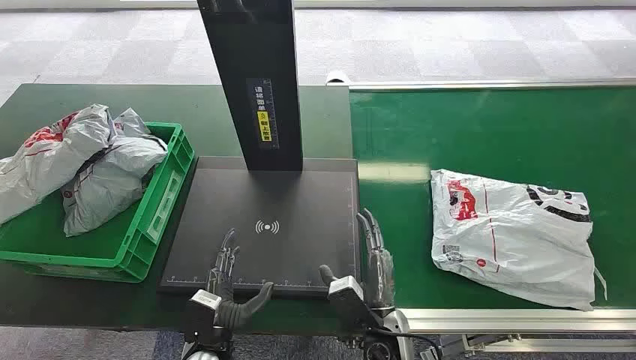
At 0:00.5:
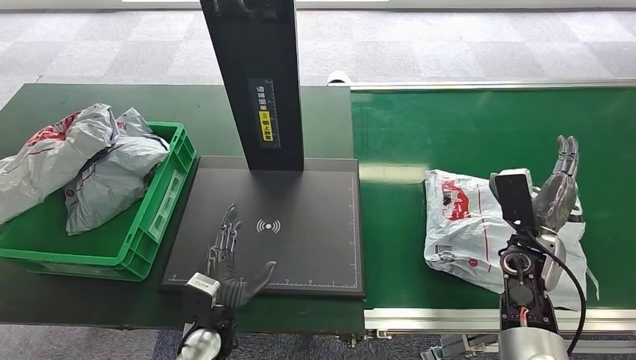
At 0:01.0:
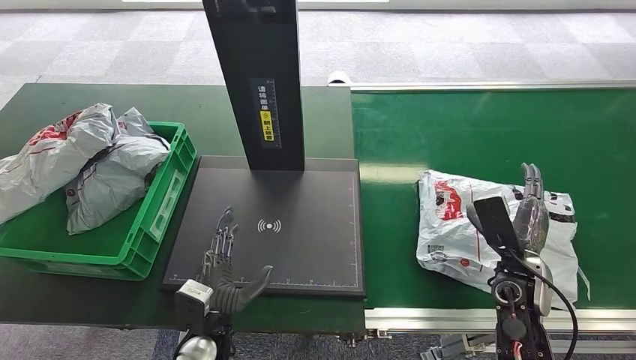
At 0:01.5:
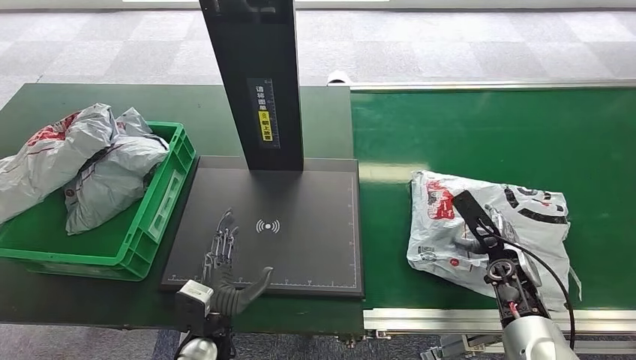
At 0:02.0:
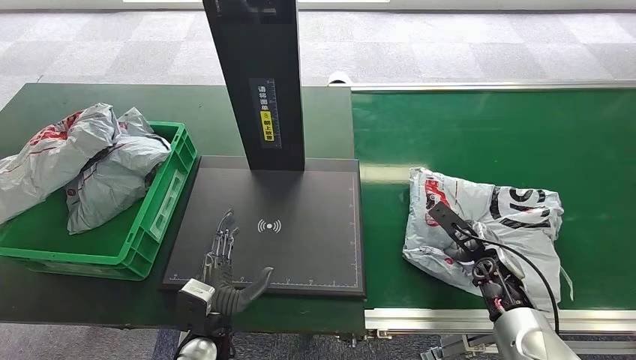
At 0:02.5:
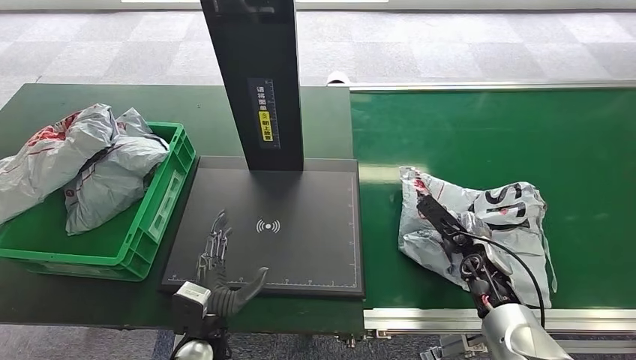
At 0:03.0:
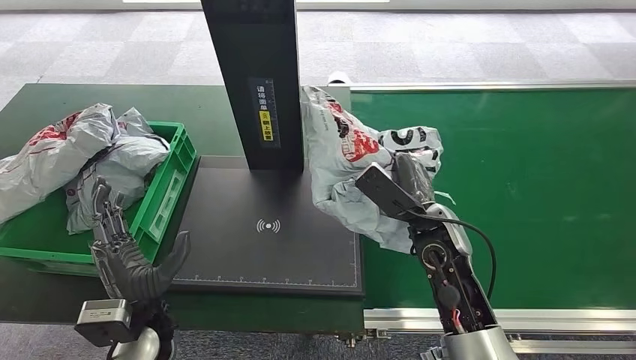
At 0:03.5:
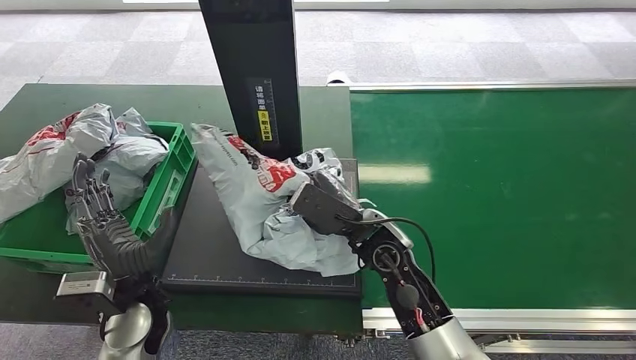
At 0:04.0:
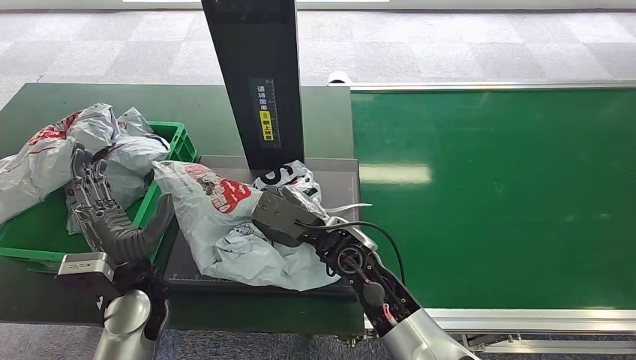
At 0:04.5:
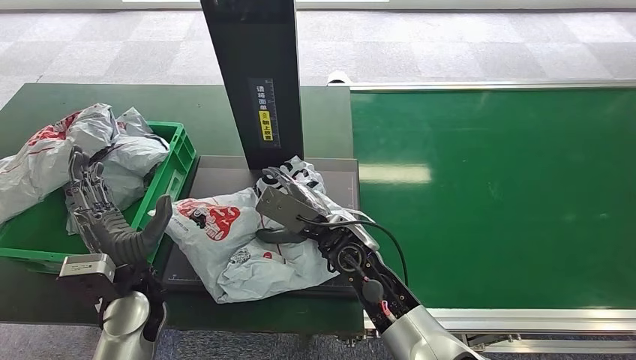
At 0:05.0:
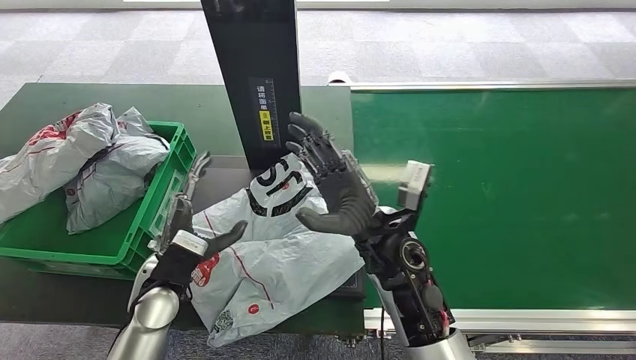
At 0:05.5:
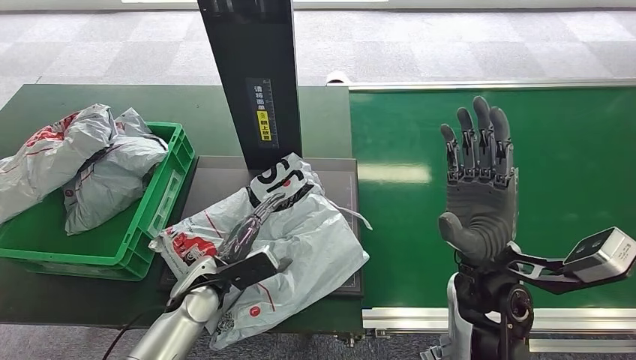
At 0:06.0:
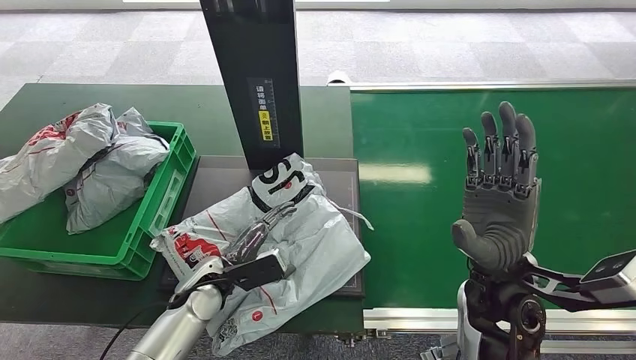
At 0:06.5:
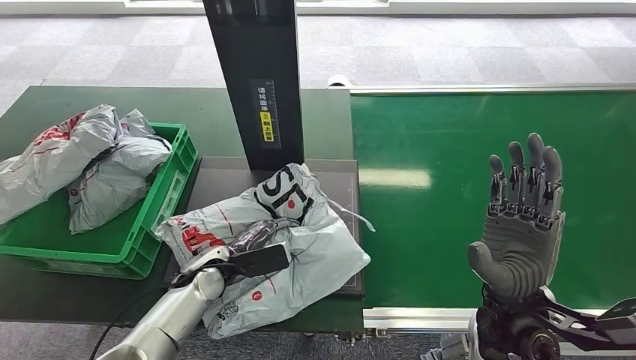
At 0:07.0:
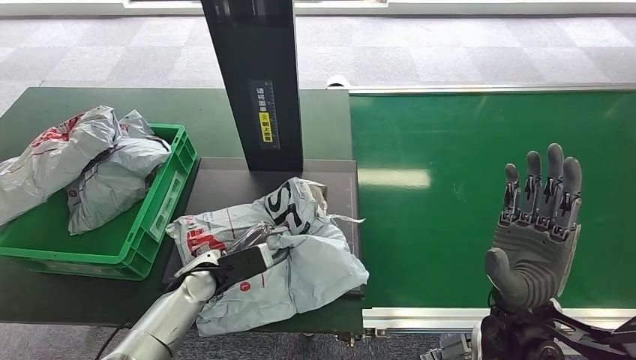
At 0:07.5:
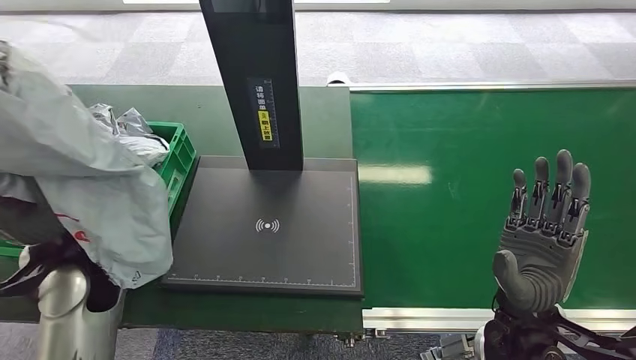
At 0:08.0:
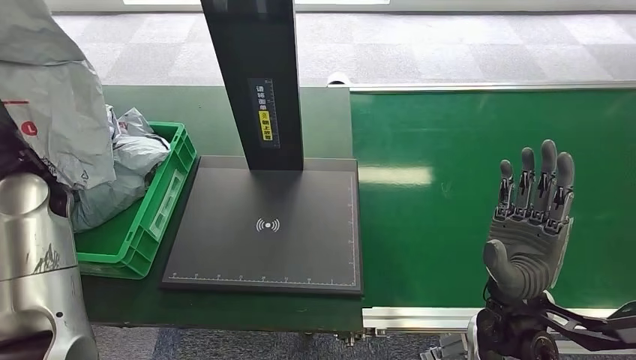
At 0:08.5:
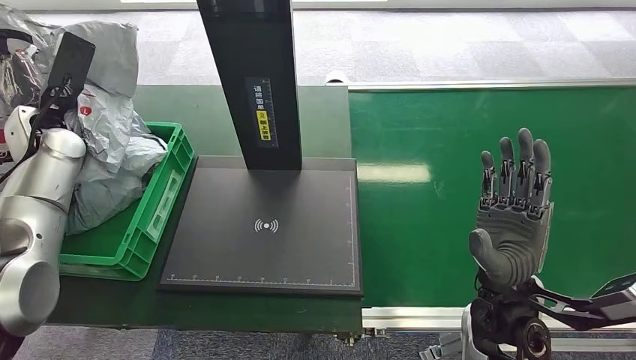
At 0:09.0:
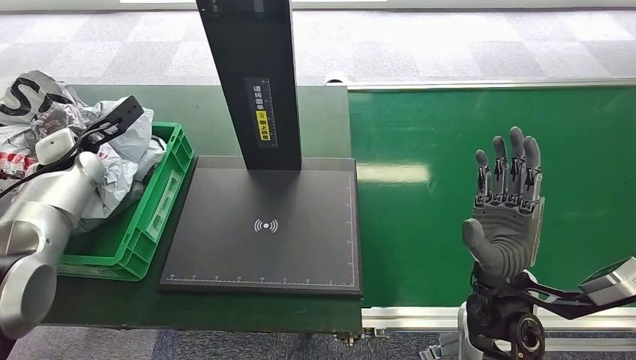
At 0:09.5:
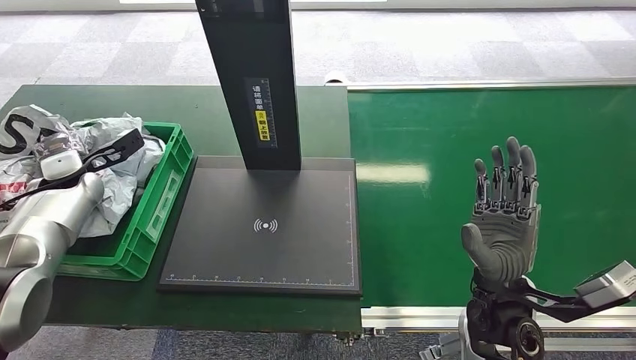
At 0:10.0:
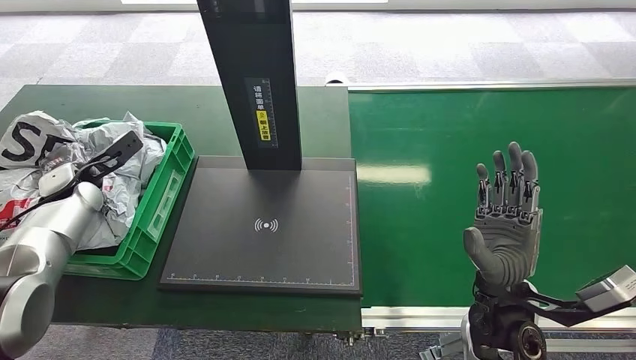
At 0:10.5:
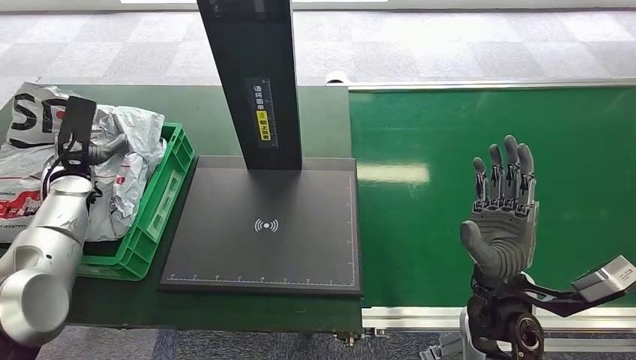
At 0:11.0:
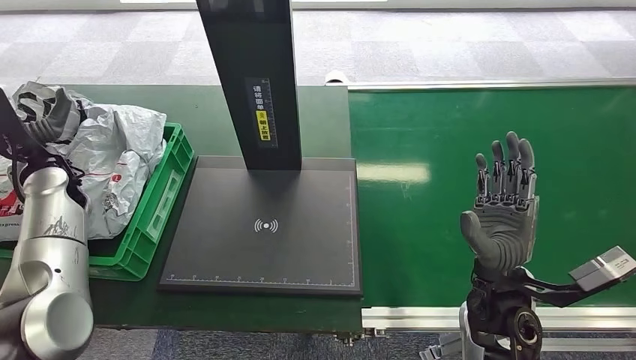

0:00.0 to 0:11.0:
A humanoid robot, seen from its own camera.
Step, 0:00.0 to 0:03.0: Pick up the package from the conveyor belt.
Step, 0:03.5 to 0:04.5: Place the package onto the inbound machine.
Step, 0:05.0 to 0:07.0: Pick up the package from the inbound machine.
Step, 0:07.5 to 0:11.0: Place the package into the parcel locker.
